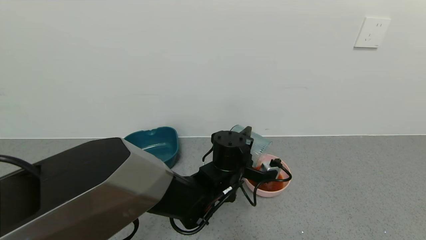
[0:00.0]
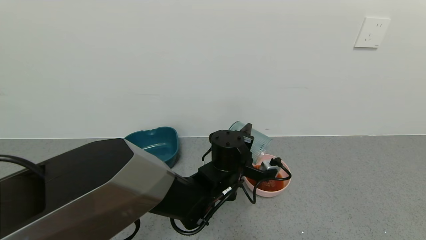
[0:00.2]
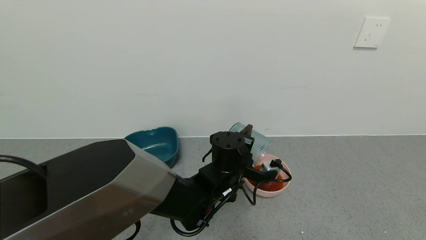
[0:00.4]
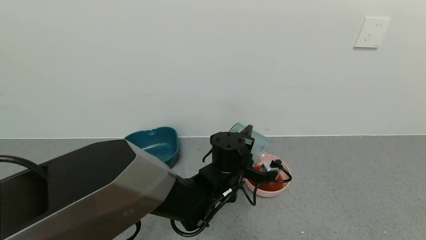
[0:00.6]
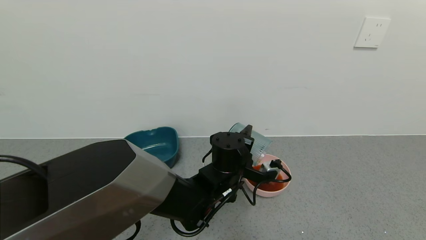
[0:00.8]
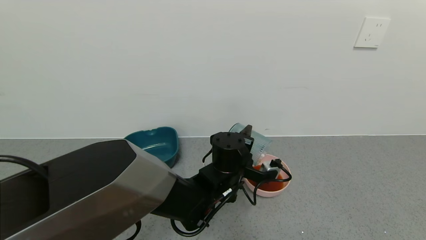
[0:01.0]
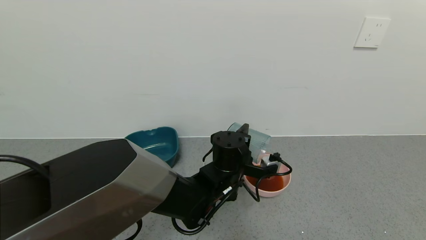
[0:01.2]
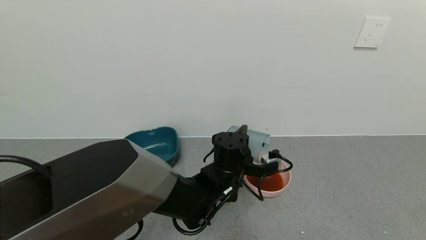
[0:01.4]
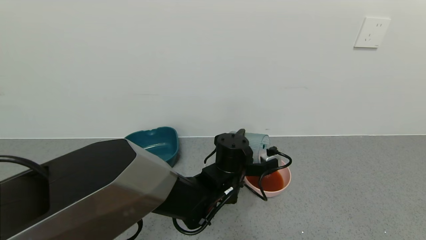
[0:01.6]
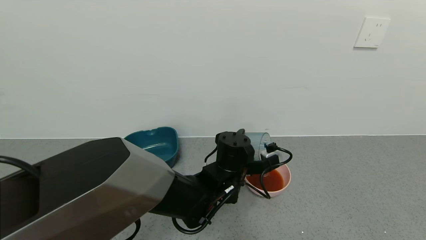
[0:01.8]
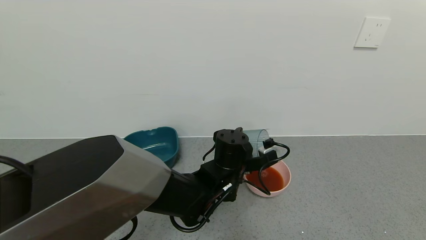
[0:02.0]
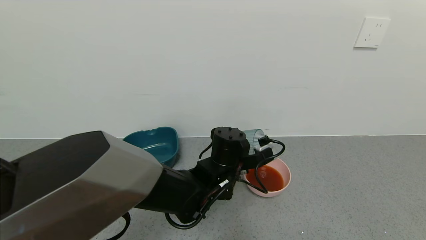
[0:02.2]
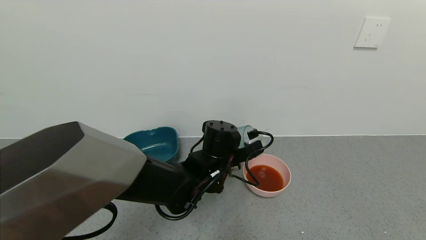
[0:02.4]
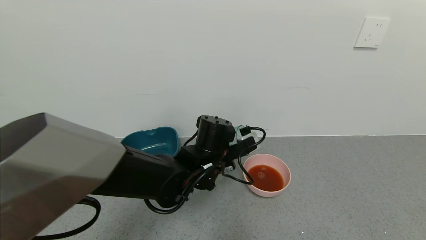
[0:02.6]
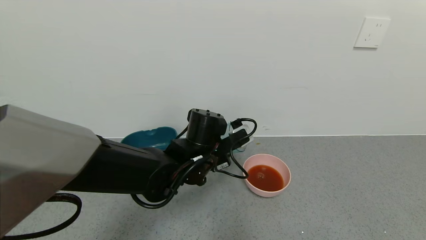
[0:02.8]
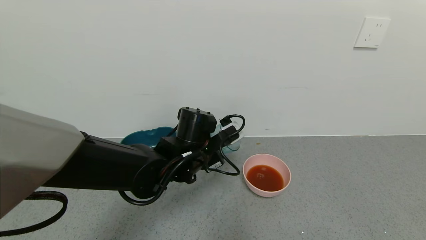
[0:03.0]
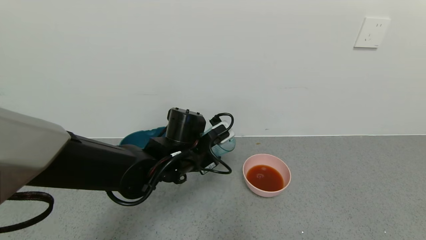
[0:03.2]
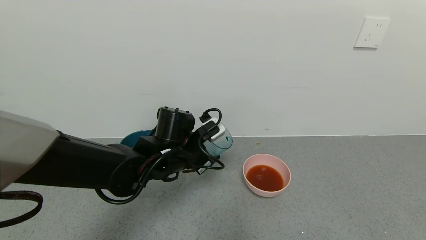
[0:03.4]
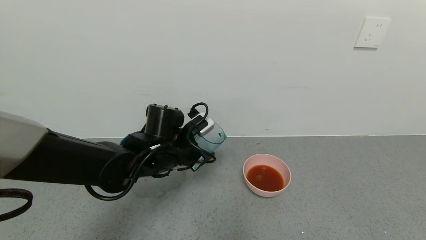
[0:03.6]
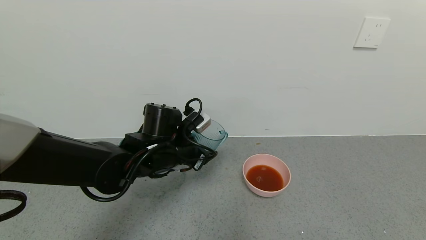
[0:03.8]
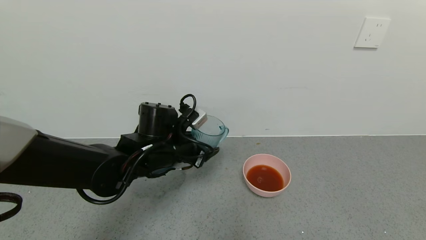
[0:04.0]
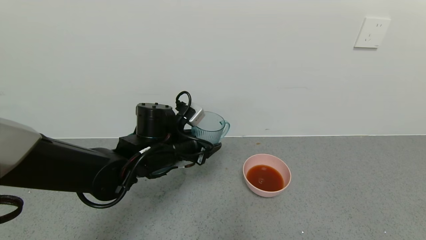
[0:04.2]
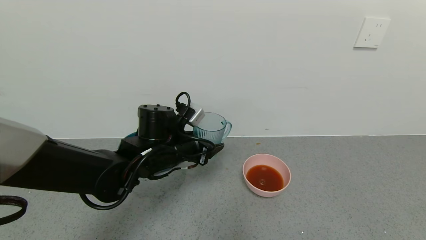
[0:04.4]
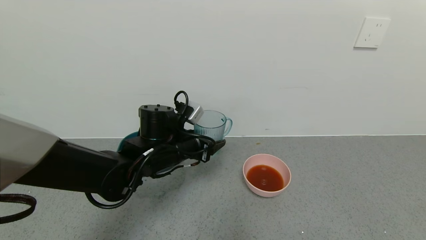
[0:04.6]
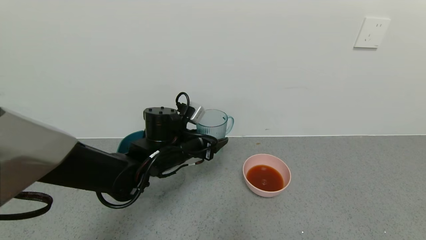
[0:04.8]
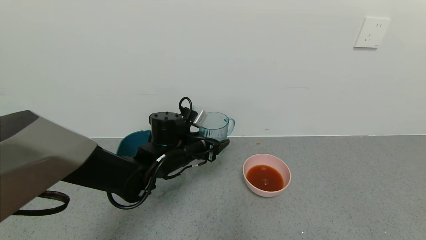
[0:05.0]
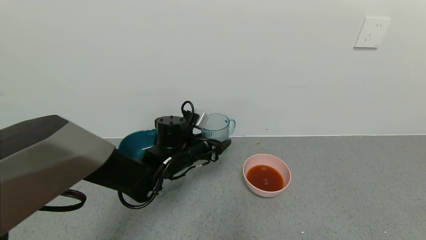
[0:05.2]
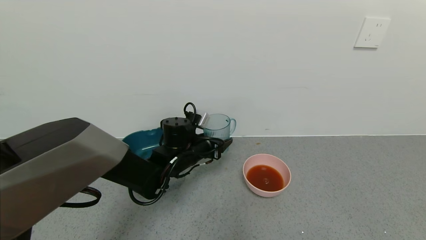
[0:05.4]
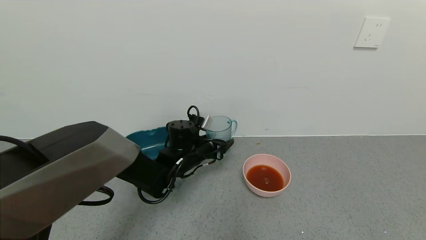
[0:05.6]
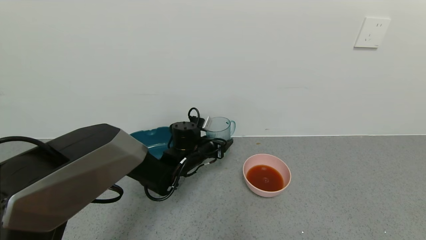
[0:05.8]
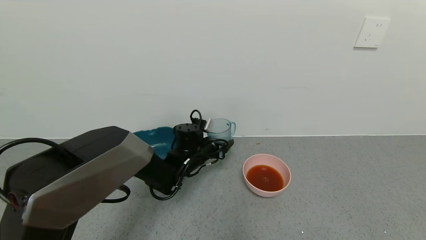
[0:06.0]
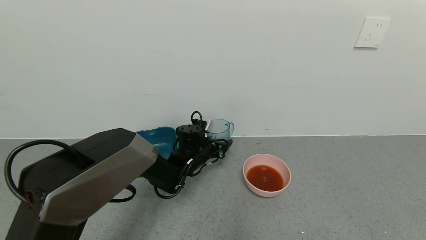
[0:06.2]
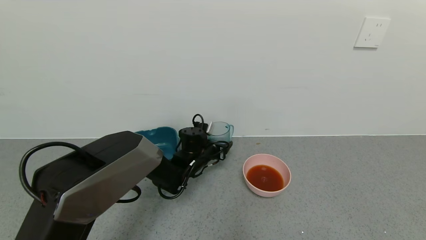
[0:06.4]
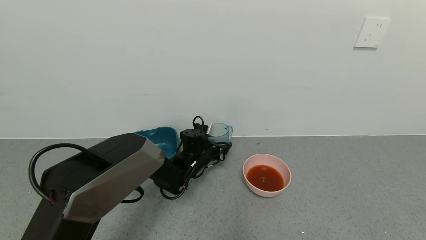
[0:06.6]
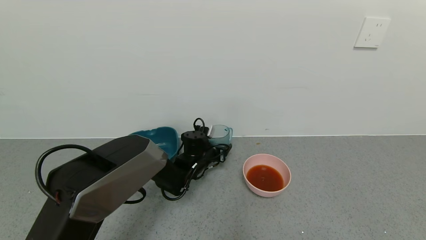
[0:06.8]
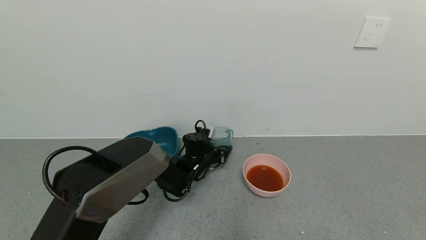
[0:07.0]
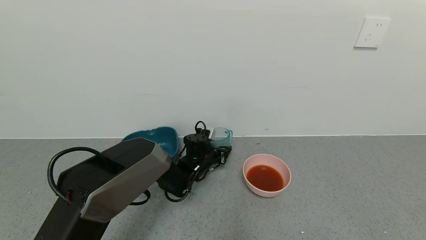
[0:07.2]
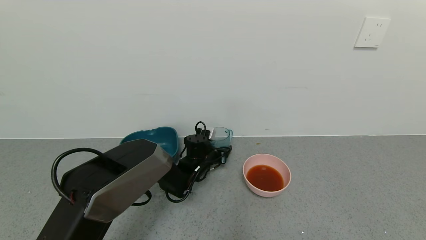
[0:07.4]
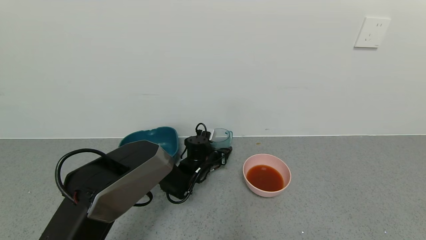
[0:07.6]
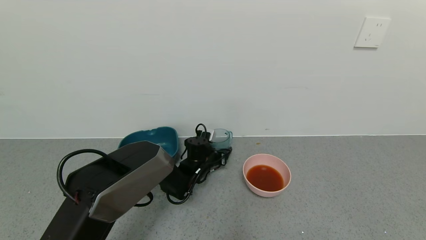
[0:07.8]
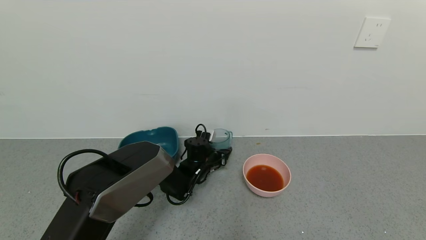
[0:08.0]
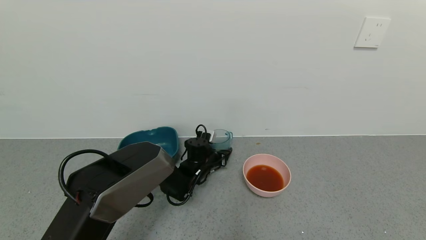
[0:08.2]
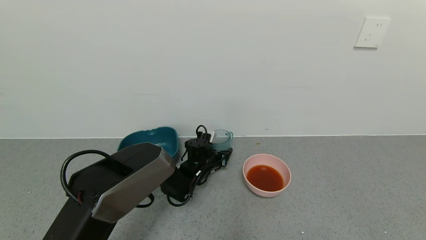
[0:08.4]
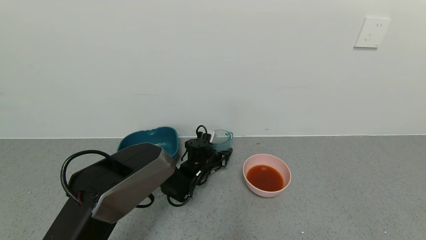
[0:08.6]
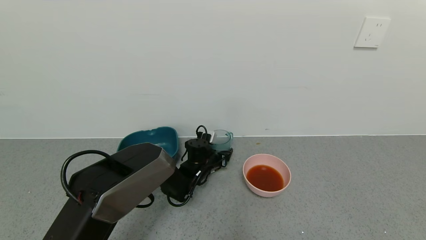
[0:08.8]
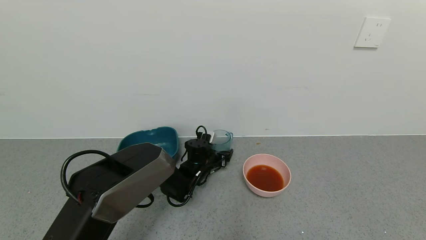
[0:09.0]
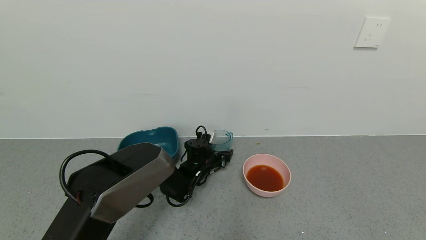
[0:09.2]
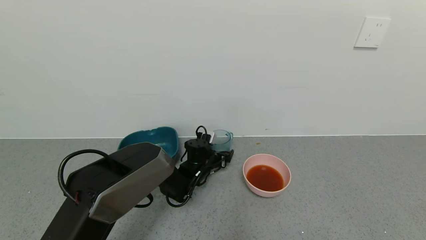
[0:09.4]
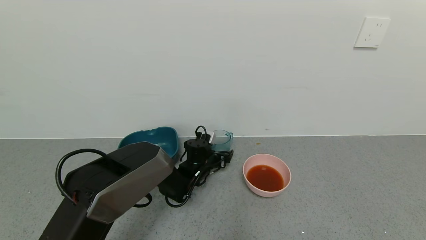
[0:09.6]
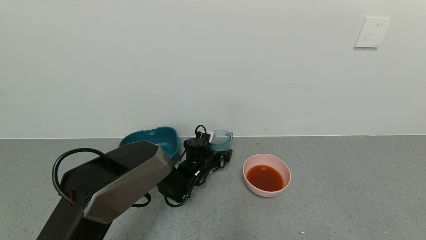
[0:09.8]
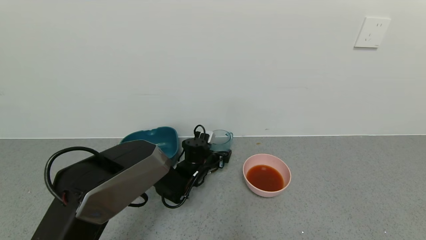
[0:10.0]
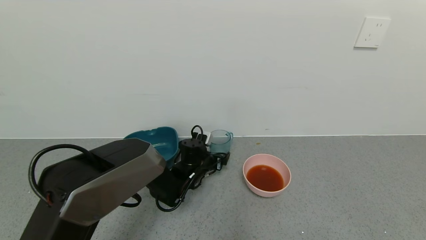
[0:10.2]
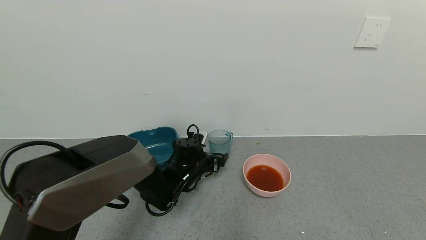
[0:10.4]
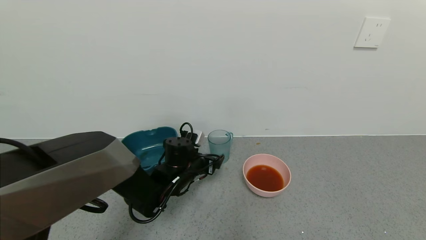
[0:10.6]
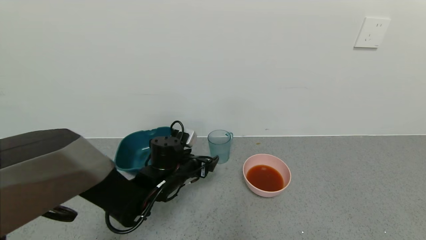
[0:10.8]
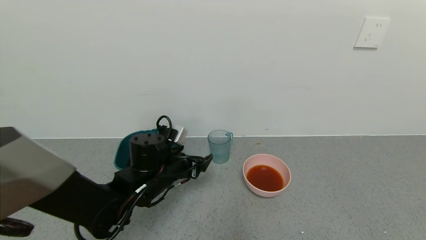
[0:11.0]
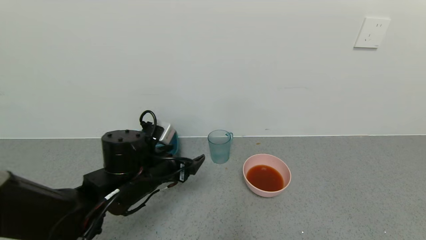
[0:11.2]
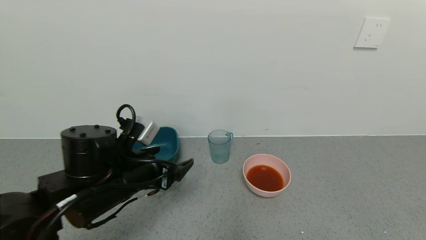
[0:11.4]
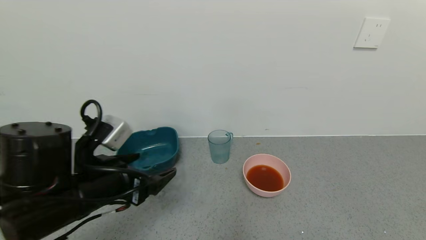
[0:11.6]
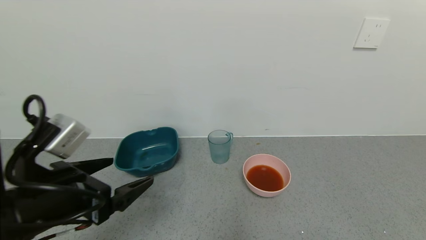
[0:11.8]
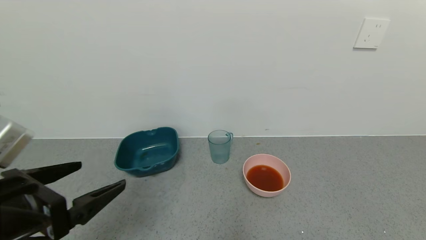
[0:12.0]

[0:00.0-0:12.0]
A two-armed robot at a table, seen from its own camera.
Task of the whole recording: use a gripper to pick up the cup and pour the liquid into a bowl or tray.
Step, 0:00.0 to 0:02.0: Pour the tea into the pink bowl with left gripper.
Step, 0:02.2 to 0:08.8: Place blue cup with tea on the table with left gripper.
0:01.6 to 0:03.0: The left gripper travels to the left by about 10 cm.
0:03.0 to 0:04.4: The left gripper is displaced to the left by approximately 5 cm.
0:04.4 to 0:06.0: The left gripper goes some 10 cm forward and downward.
0:06.0 to 0:07.6: The left gripper shifts some 5 cm downward.
0:07.6 to 0:09.0: The left gripper opens.
0:09.0 to 0:10.4: The left gripper moves some 5 cm, and opens.
0:10.4 to 0:12.0: The left gripper is displaced backward, upward and to the left by approximately 35 cm.

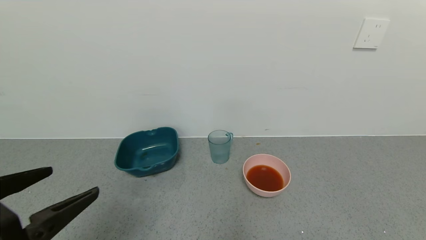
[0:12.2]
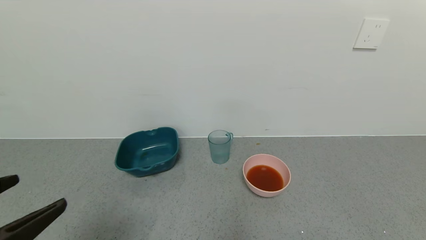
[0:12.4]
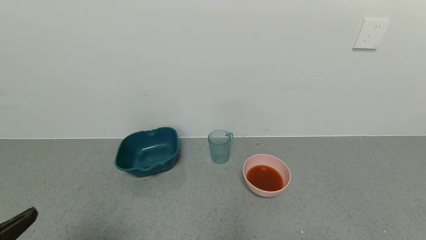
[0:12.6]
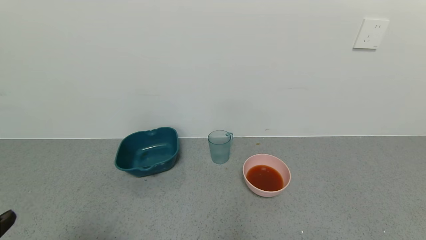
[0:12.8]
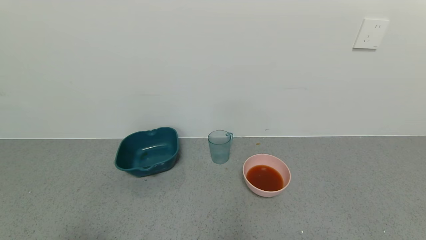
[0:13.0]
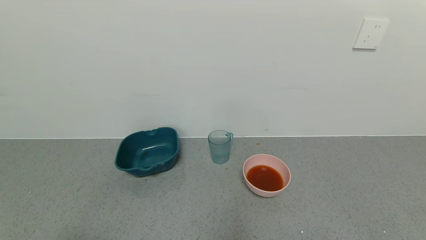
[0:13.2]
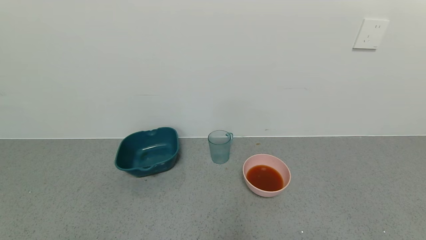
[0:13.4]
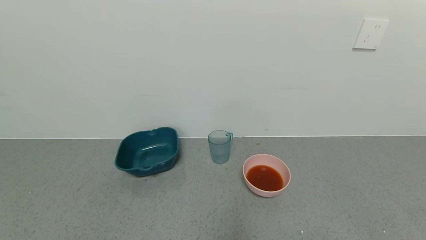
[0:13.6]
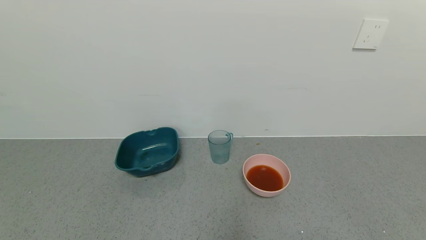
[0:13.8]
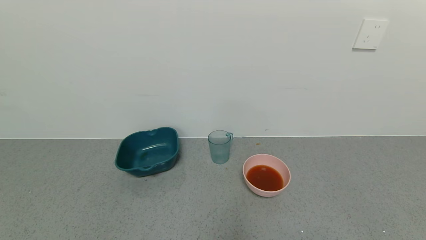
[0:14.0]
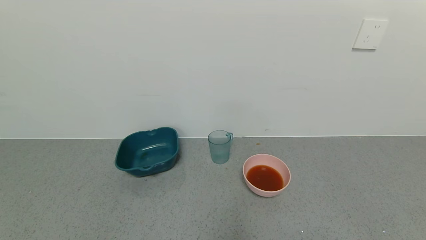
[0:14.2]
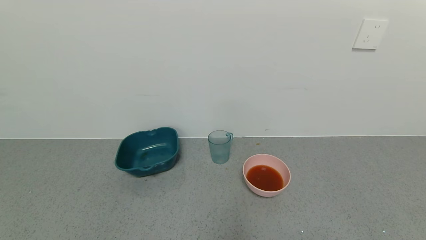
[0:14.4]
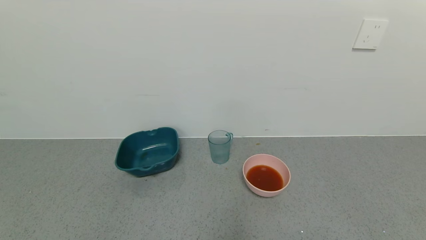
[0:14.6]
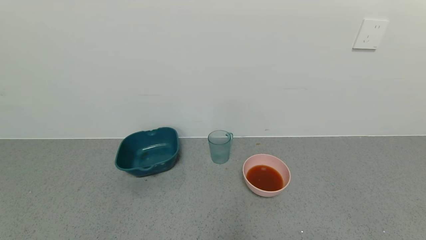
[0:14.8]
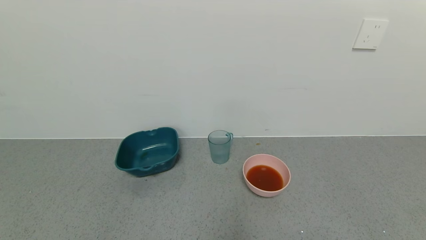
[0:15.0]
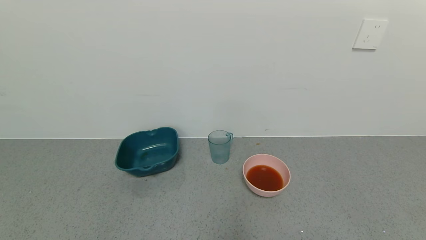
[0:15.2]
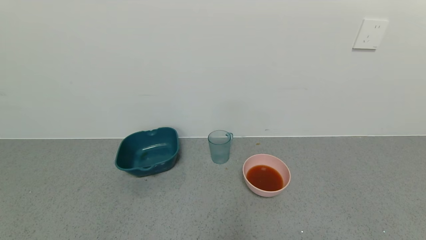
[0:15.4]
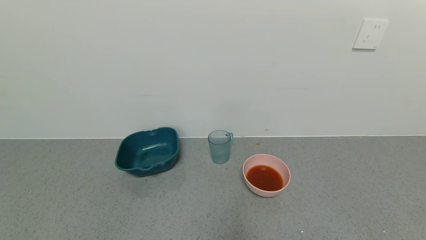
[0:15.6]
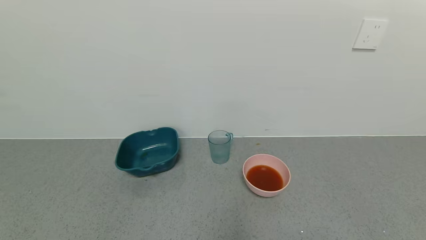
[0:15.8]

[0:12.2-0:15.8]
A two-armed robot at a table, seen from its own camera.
Task of the whole recording: use a gripper to pick up the cup and pour the liquid into a bowl or tray.
0:12.2 to 0:14.0: The left gripper is displaced backward and downward by roughly 15 cm.
